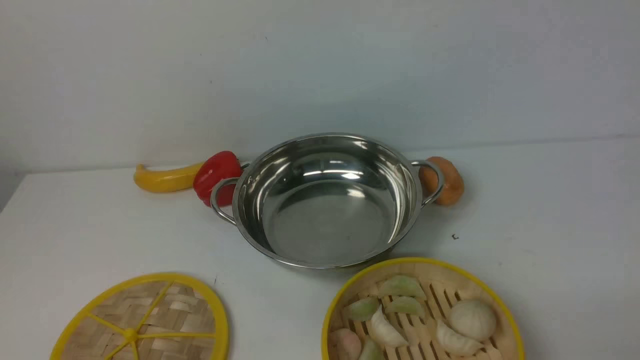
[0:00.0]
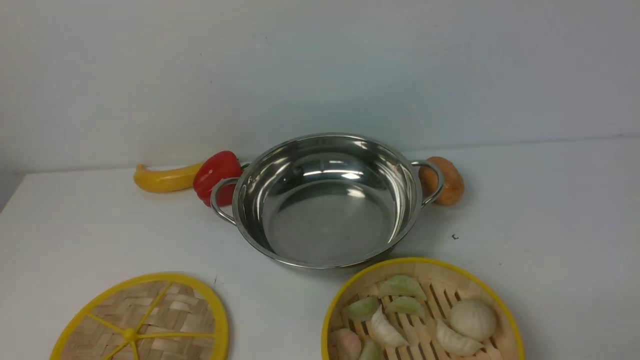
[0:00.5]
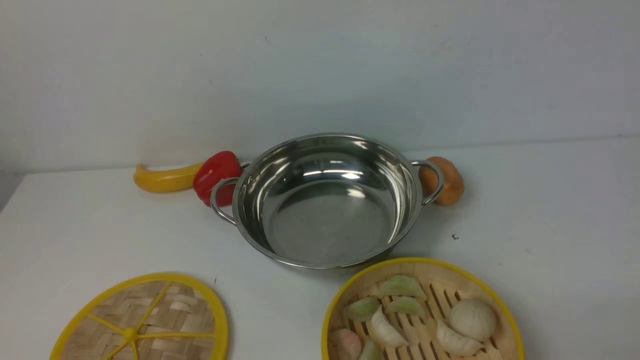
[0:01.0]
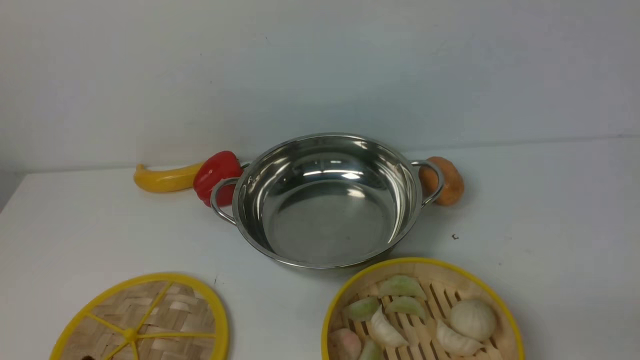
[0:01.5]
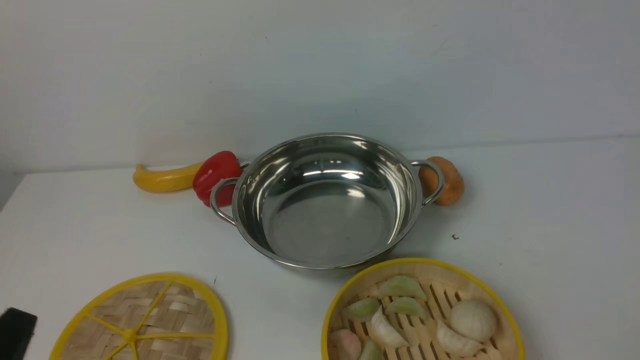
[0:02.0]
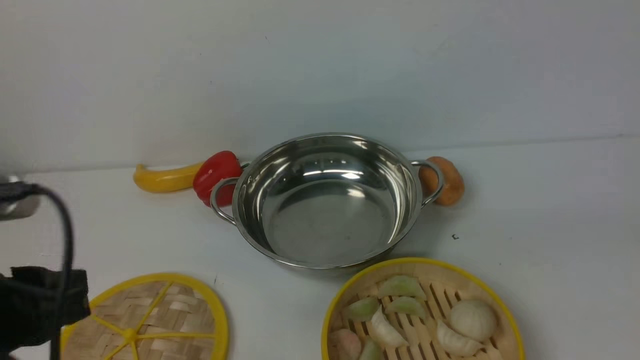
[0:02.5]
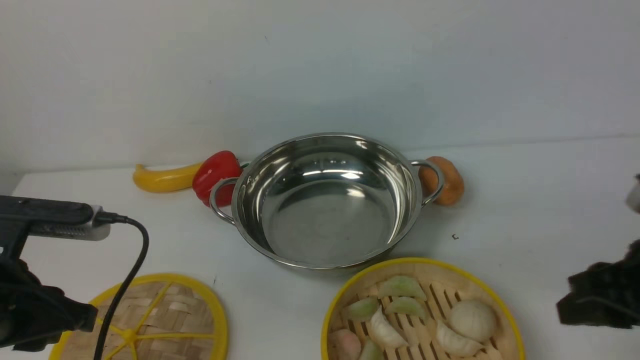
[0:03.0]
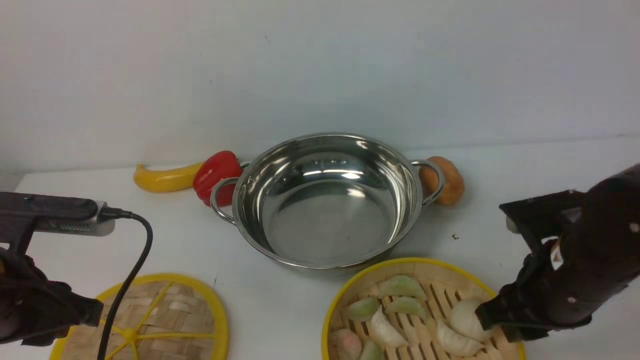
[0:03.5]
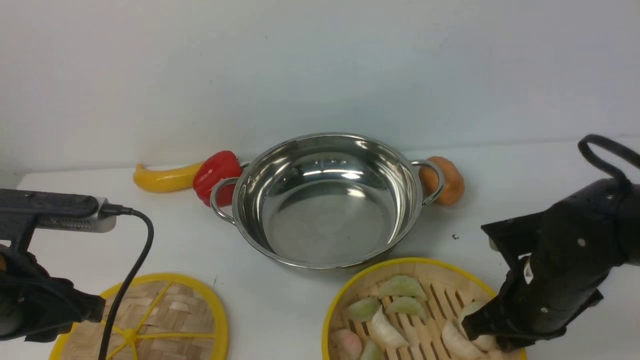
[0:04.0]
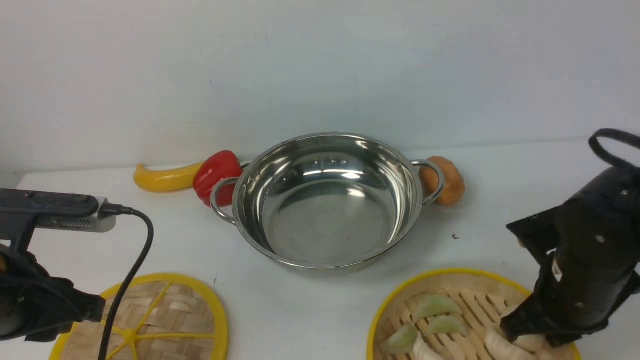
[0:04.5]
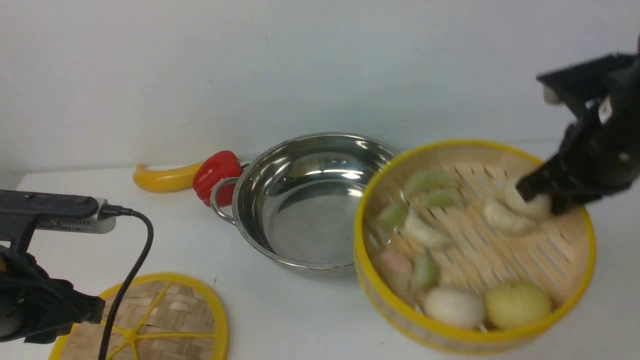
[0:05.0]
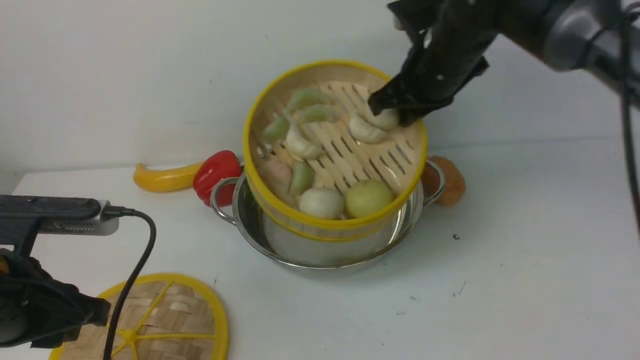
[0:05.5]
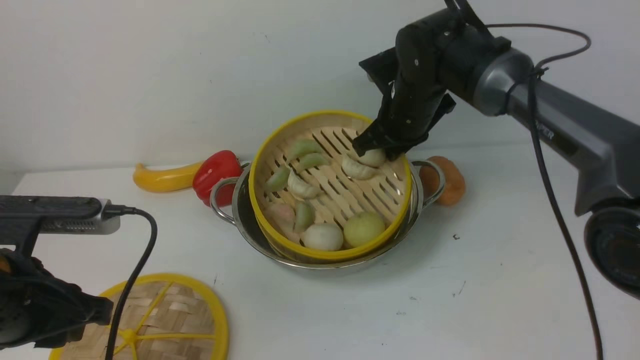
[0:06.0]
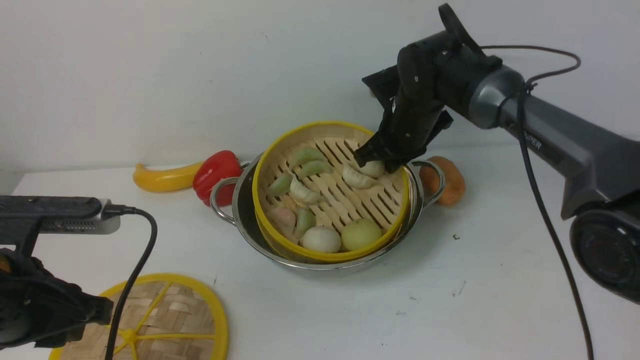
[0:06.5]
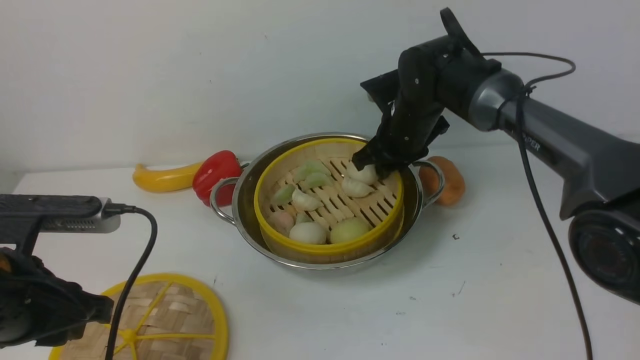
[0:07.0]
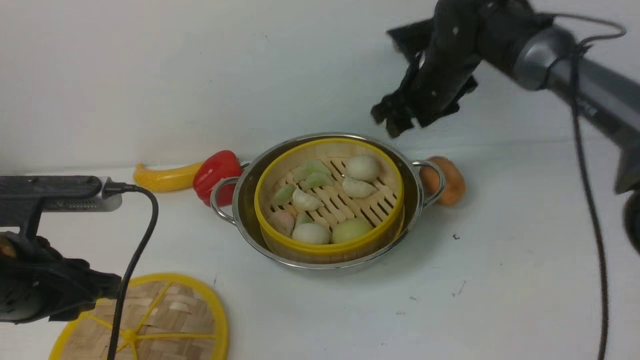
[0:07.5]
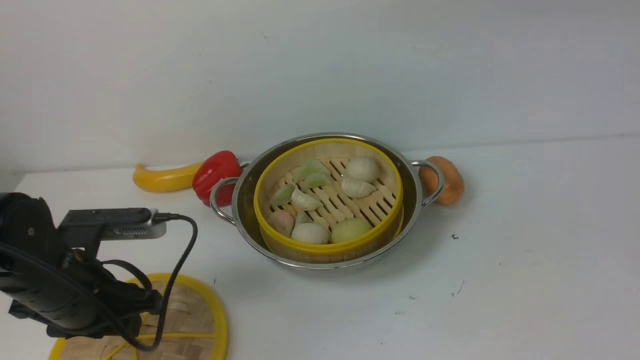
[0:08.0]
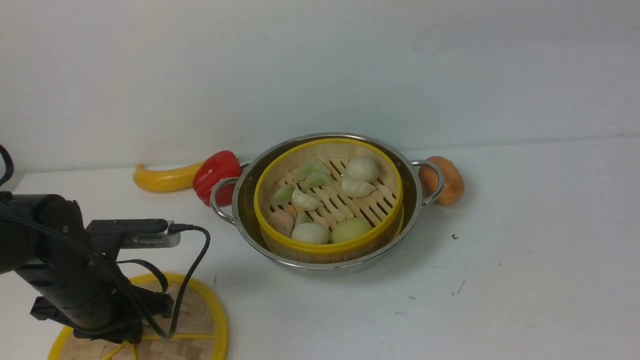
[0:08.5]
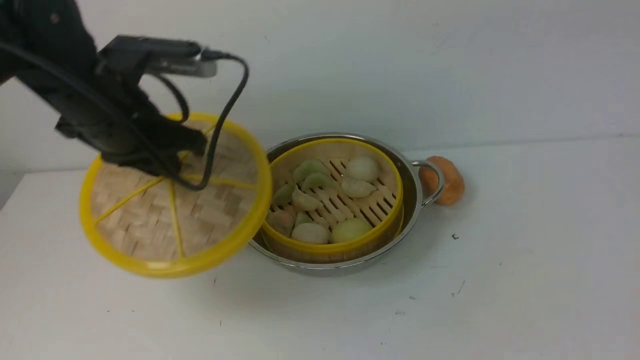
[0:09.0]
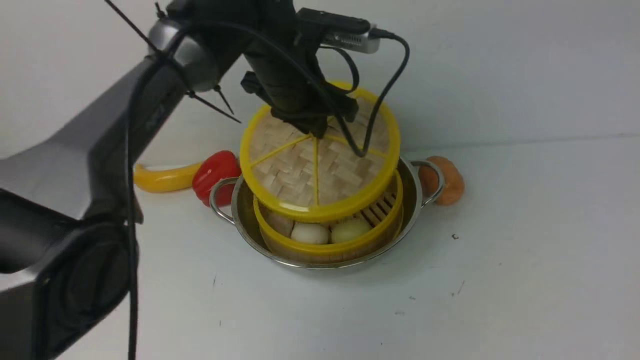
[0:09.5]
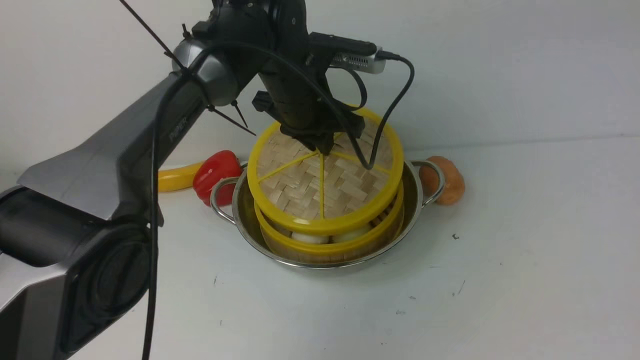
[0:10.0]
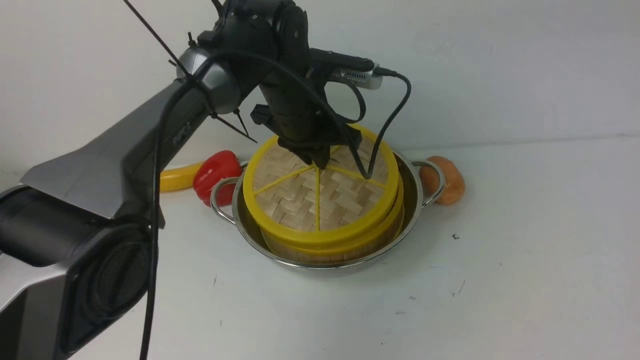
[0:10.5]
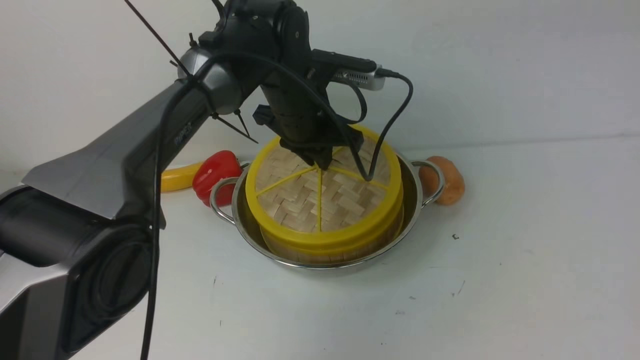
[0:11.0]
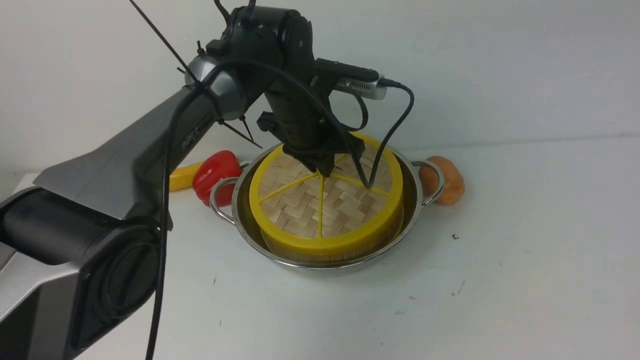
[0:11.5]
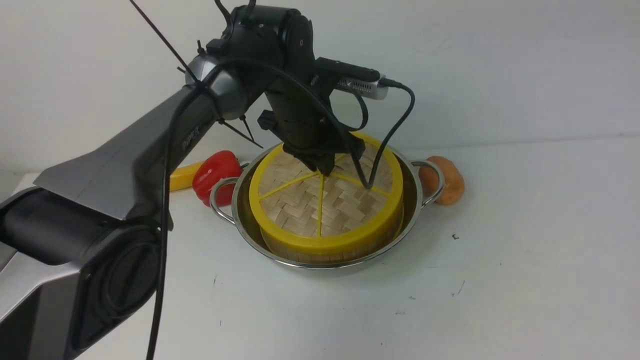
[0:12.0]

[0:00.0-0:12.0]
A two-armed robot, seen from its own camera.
Task of the whole recording: place the steamer in the pot on the white table, and put the lid on the steamer.
Step, 0:00.0 to 0:04.5: use the right arm to lift the steamer closest to it.
Step, 0:05.0 to 0:07.5: use the right arm to put the steamer into the iron steamer pot in the middle.
Step, 0:08.0 to 0:08.5: use the left arm to lift the lid of the steamer.
0:00.0 to 0:02.0: The left gripper heads upward, covering approximately 5 cm.
0:02.0 to 0:04.0: The left gripper goes about 15 cm forward. The right gripper travels forward and to the left by about 25 cm.
0:04.0 to 0:06.0: The right gripper goes approximately 25 cm forward and to the left.
0:06.0 to 0:08.0: The right gripper is displaced upward, to the right and backward by about 30 cm, and opens its fingers. Meanwhile the left gripper shifts roughly 10 cm downward and forward.
0:08.0 to 0:10.0: The right gripper goes about 10 cm backward. The left gripper heads to the right and forward, covering roughly 30 cm, and closes its fingers.
0:10.0 to 0:12.0: The grippers move only a little.

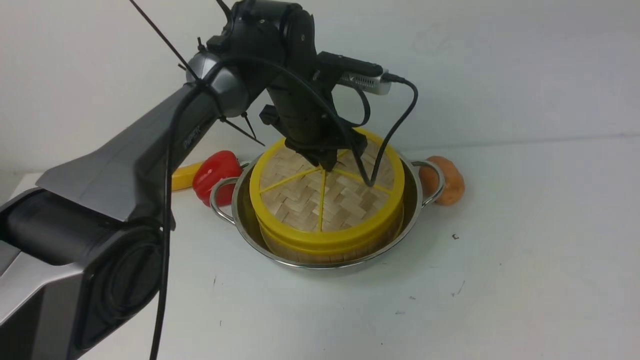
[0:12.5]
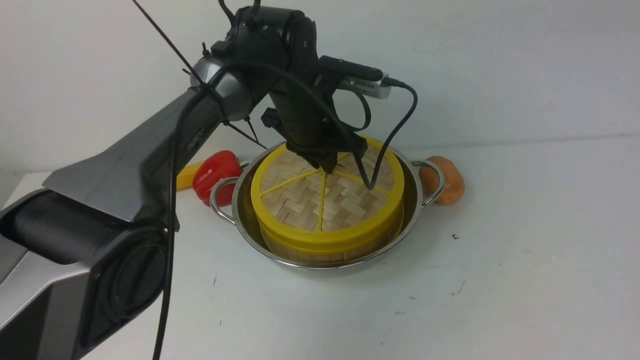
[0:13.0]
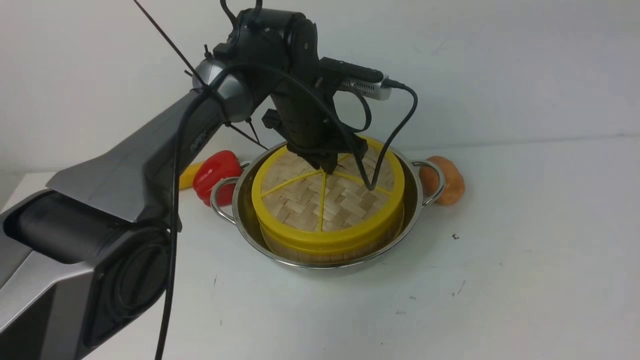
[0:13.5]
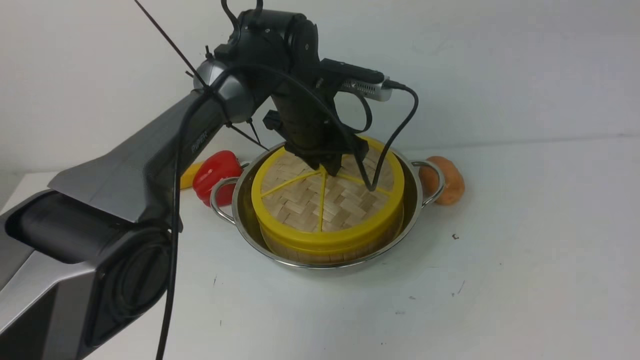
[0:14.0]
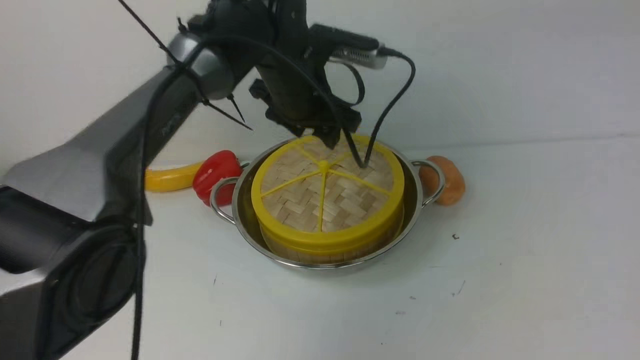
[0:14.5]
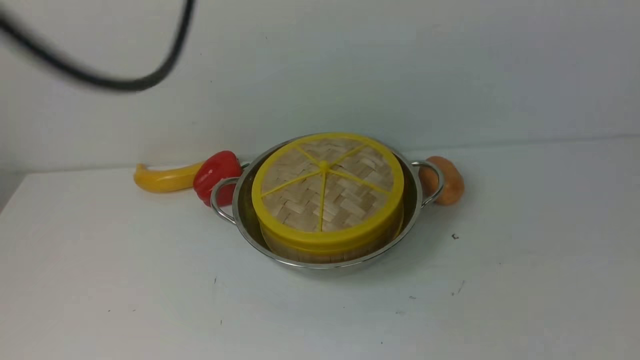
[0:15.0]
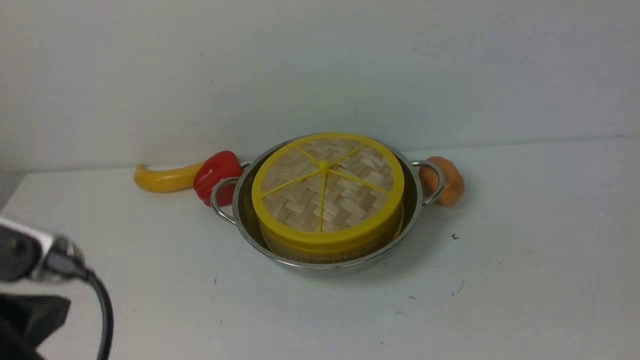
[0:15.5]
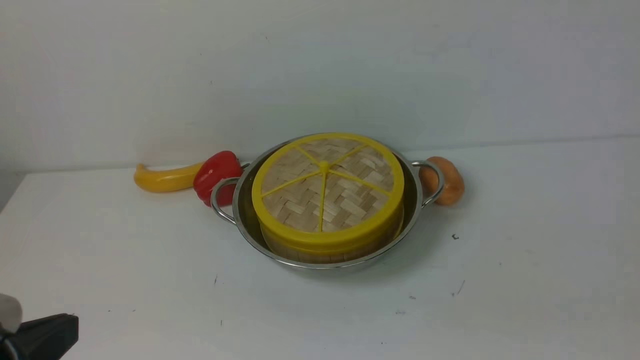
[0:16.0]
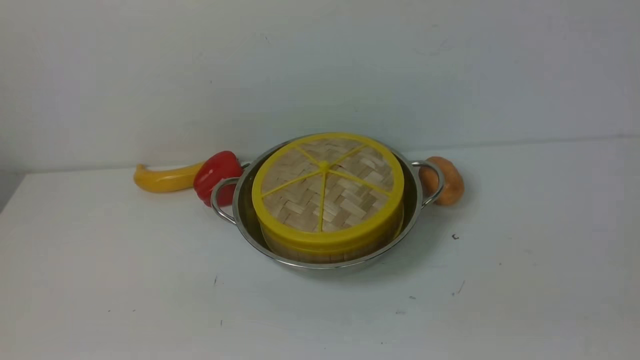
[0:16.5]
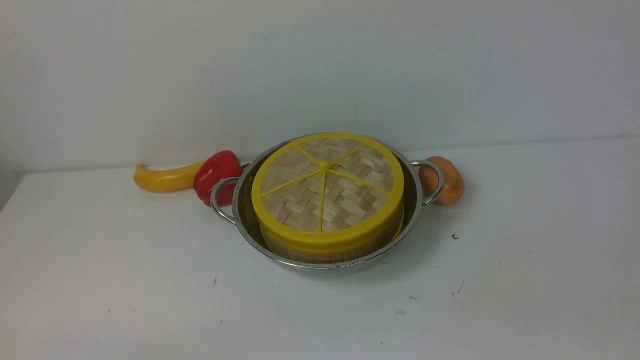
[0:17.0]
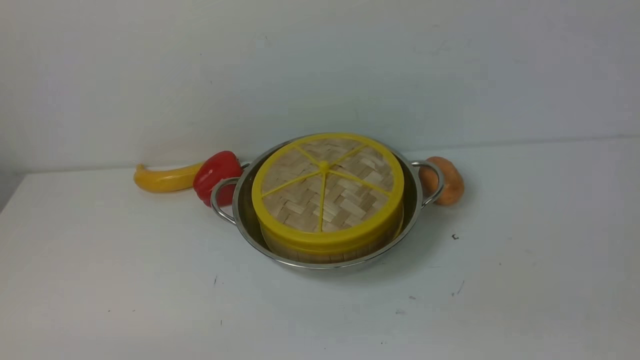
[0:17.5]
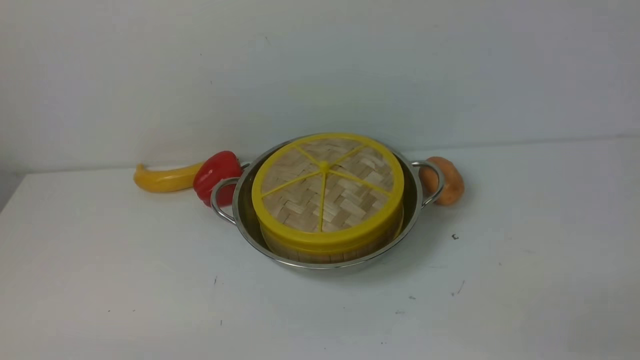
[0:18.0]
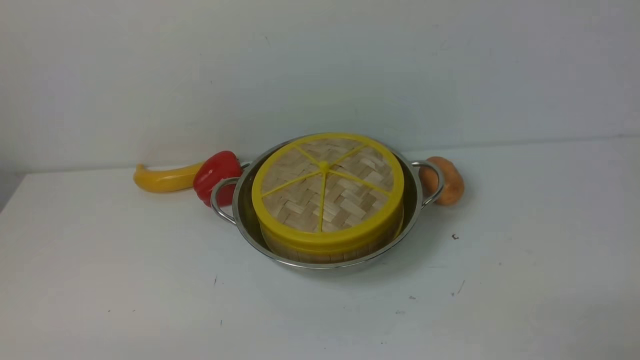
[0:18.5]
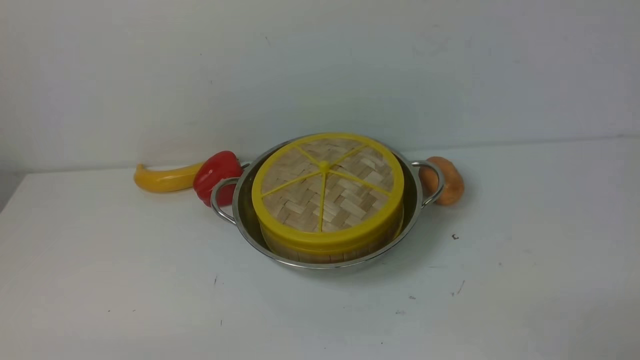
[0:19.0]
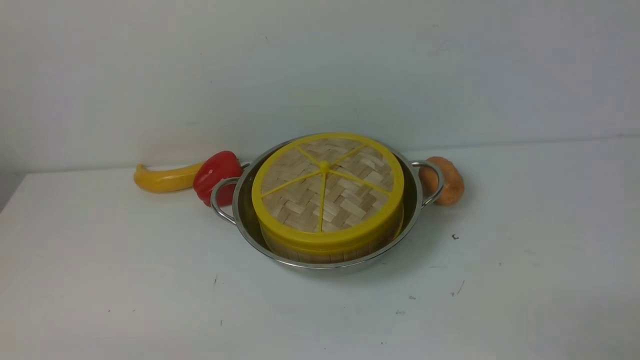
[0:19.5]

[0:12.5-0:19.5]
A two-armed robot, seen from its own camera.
Task of the whole recording: place the steamer in the pot on the white table, and put the lid on the steamer.
Step, 0:12.5 to 0:14.5: use the left arm to place the steamer lid on the steamer.
0:12.5 to 0:14.5: The left gripper goes about 5 cm upward, and opens.
0:14.5 to 0:16.0: The right gripper travels downward and backward by about 30 cm, and closes up; the left gripper moves backward and to the left, about 40 cm, and closes up.
0:16.0 to 0:17.5: The left gripper is displaced downward by about 15 cm.
